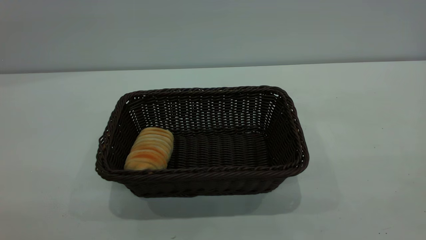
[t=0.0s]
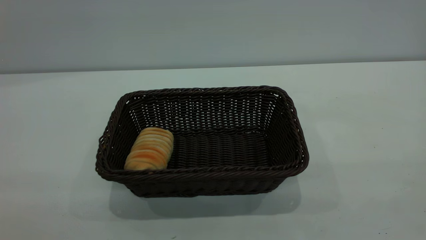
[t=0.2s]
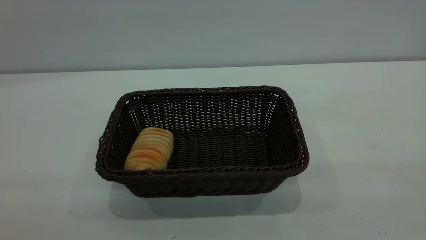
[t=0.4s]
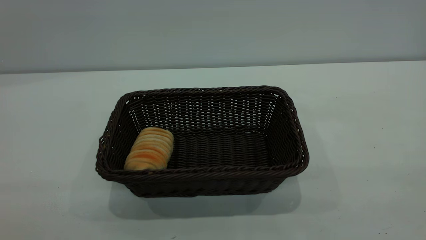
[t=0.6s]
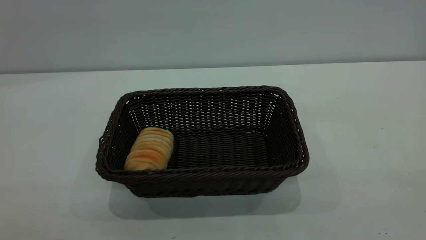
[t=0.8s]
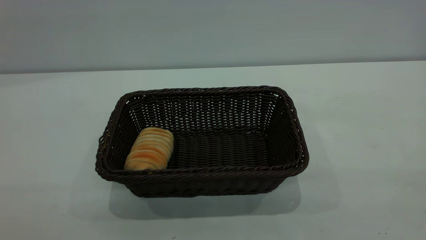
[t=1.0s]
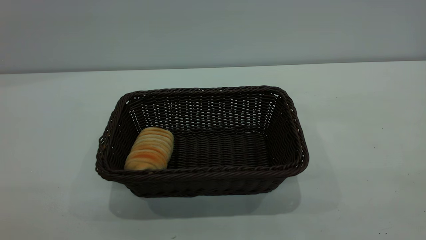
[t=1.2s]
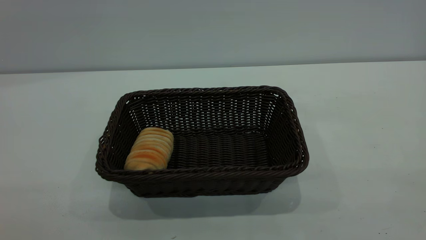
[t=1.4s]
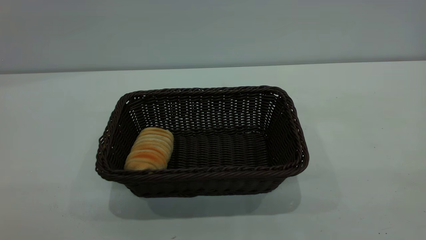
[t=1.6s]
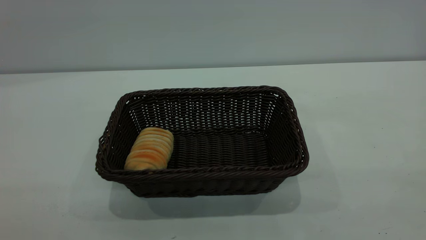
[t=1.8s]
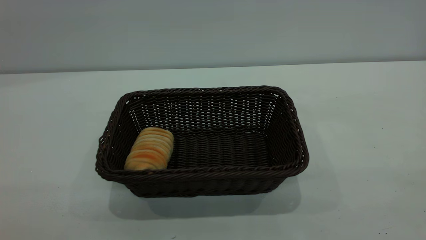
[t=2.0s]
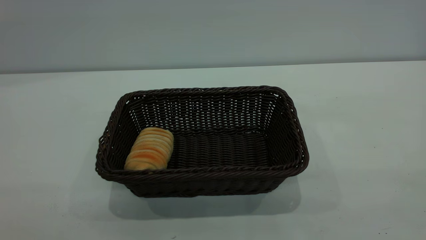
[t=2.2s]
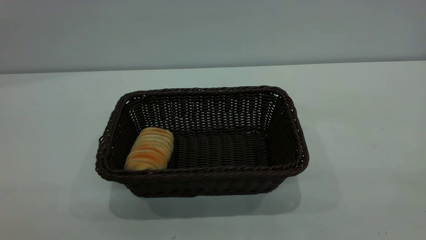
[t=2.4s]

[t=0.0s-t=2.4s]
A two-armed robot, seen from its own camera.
Task of the whole recording: One hand grasps the black basket and places it in the middle of the table, while the other hand picks up the long bread and puts it into the black basket.
t=1.2s to t=2.4s: Both grippers stay about where they are.
